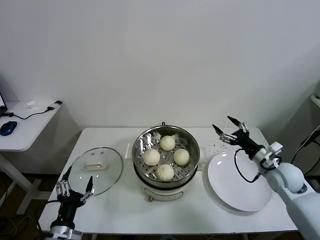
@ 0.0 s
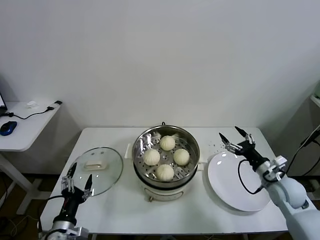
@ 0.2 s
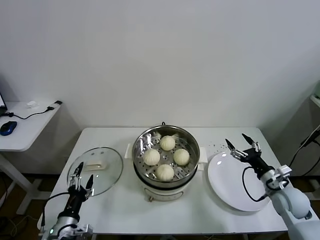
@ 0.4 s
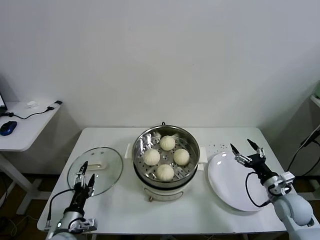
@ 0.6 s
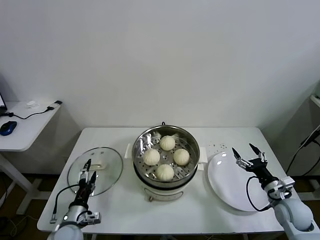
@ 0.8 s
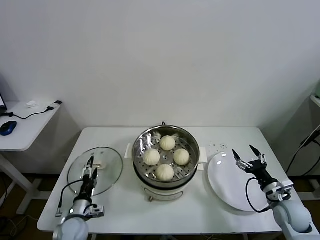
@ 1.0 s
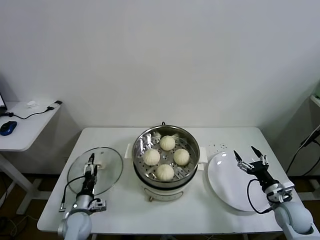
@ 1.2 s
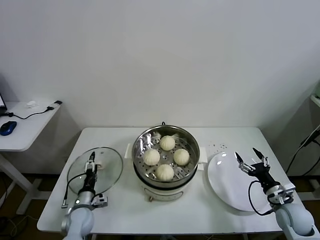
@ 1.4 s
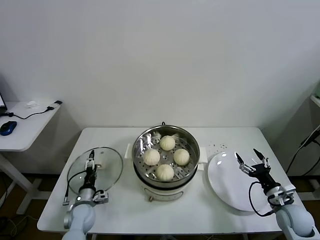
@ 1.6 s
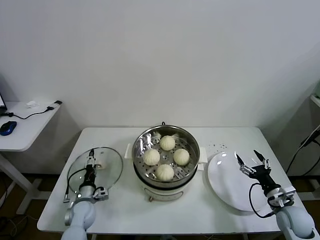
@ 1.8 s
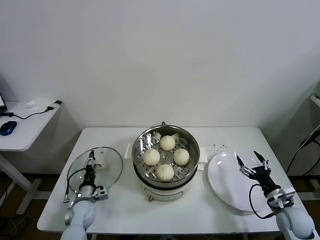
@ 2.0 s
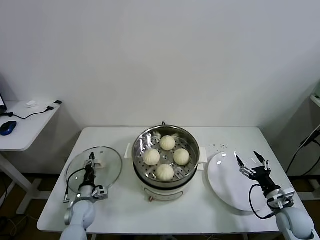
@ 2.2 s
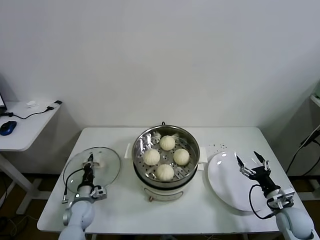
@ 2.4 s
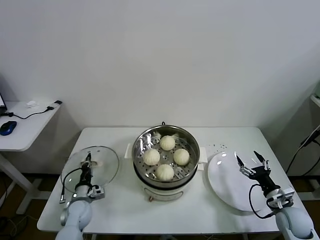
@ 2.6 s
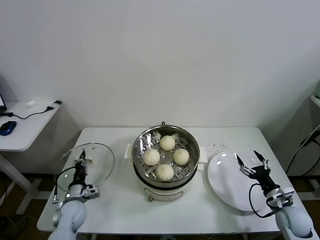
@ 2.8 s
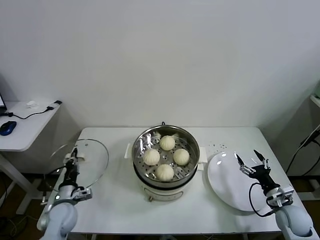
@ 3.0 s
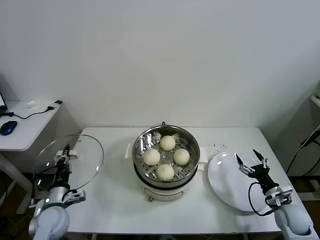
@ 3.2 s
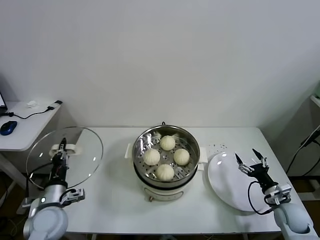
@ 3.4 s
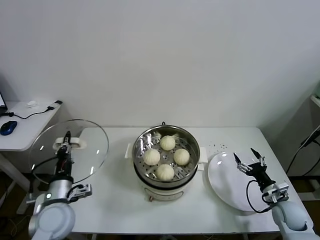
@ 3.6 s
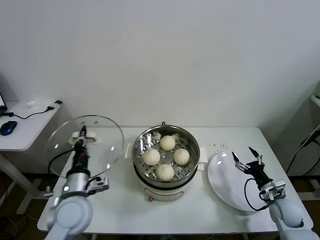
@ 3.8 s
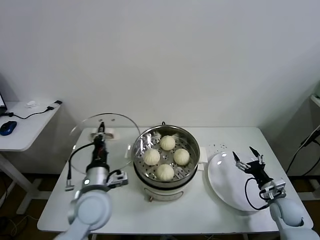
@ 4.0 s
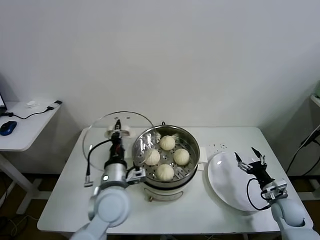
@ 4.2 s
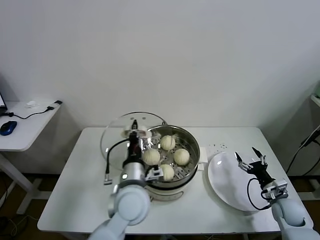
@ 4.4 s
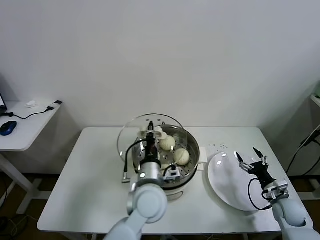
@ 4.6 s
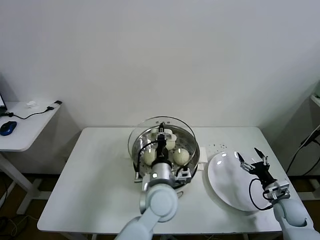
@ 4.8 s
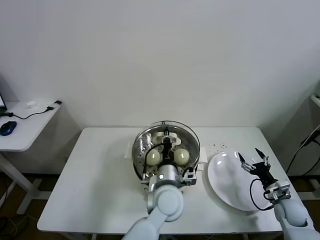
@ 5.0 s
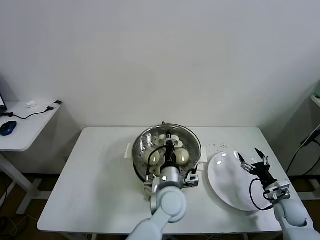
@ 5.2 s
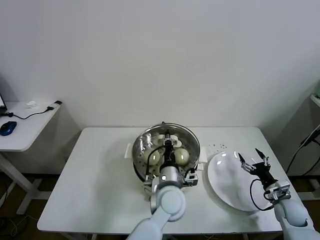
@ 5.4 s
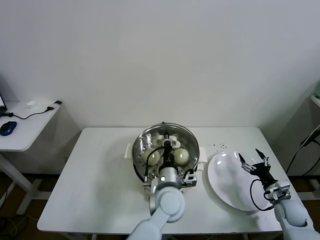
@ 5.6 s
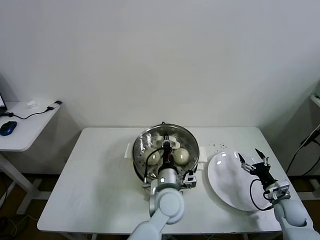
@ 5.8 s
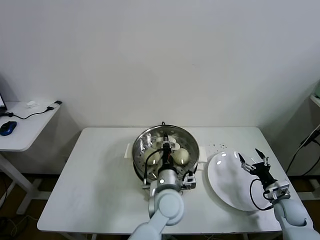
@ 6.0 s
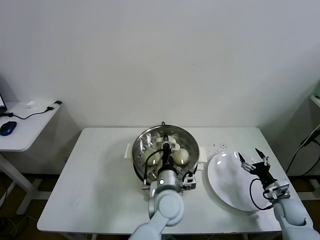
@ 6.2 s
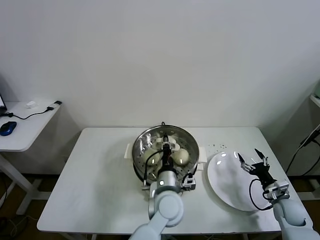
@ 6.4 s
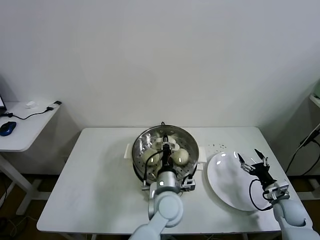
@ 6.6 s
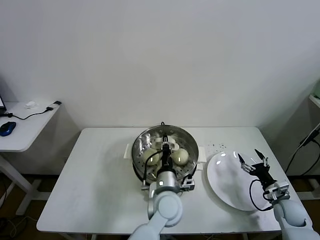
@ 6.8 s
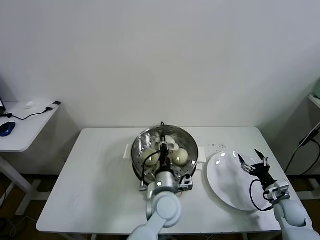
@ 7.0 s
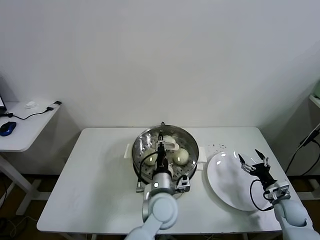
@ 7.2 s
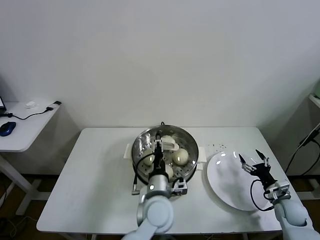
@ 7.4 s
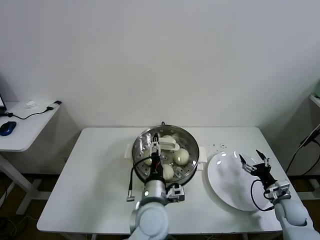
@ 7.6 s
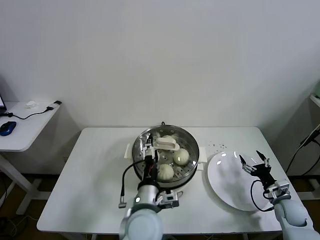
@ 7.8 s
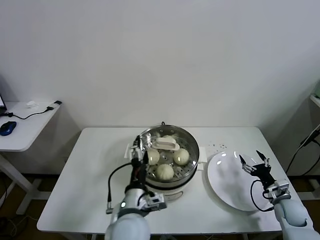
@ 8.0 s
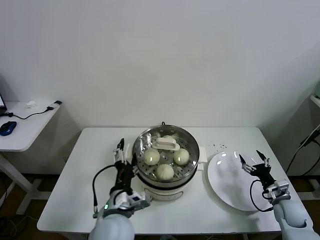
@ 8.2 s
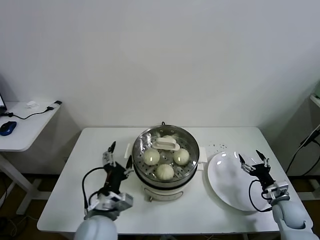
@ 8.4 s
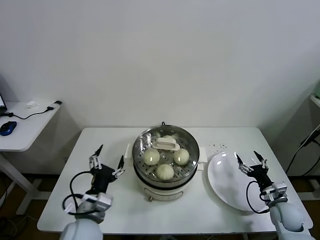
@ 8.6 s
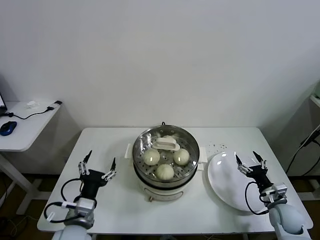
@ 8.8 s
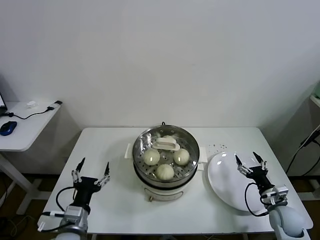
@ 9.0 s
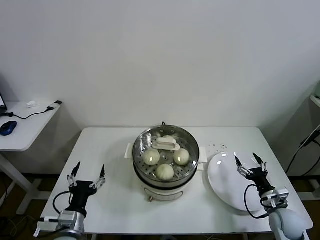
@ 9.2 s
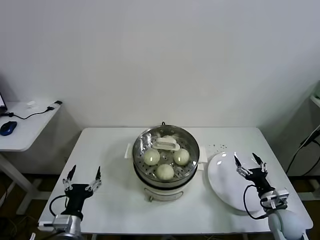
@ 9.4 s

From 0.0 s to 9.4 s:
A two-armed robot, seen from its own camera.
Task of the whole recording: take steamed baozi put them in steamer.
Step, from 0.0 s to 2.4 s: Grasp the pot lid with left gripper.
Step, from 2.6 s to 7.6 s: Place the pot lid on the steamer with left gripper.
From 0.0 s to 1.6 s: The left gripper heads forward and downward, covering roughly 20 cm. Meanwhile the right gripper moves downward and backward, approximately 15 cm.
From 1.6 s to 3.2 s: The left gripper moves upward, about 10 cm, and closes.
From 3.2 s to 4.8 s: The left gripper shifts about 35 cm to the right.
From 4.8 s to 6.2 s: The left gripper changes place by some 5 cm.
From 6.2 s to 7.8 s: The left gripper shifts about 10 cm to the left and backward, and opens its fingers.
From 7.8 s to 9.4 s: The left gripper is displaced to the left by about 25 cm, while the right gripper goes roughly 5 cm to the left.

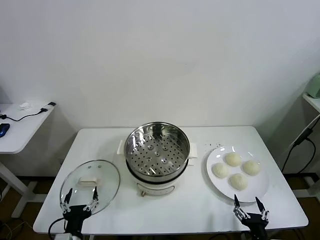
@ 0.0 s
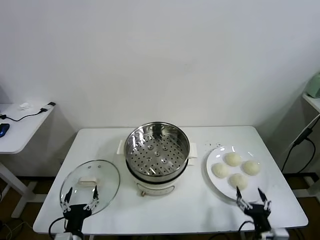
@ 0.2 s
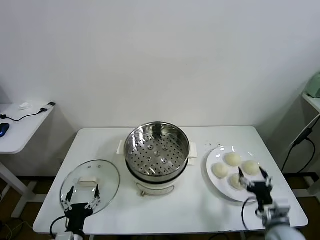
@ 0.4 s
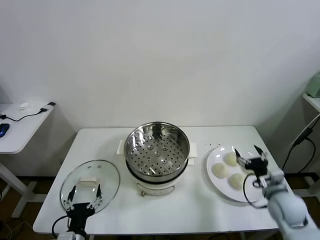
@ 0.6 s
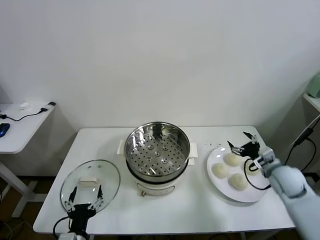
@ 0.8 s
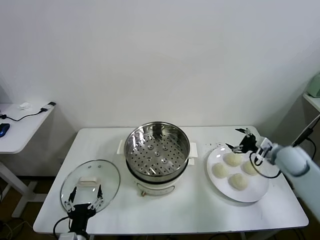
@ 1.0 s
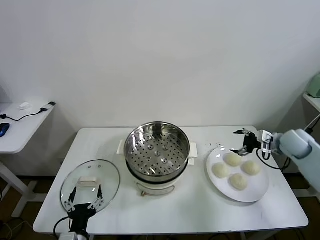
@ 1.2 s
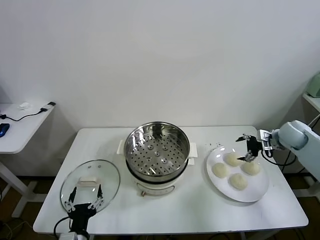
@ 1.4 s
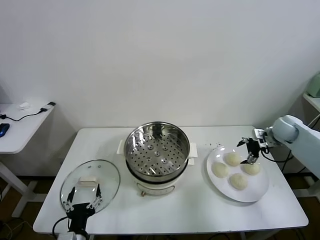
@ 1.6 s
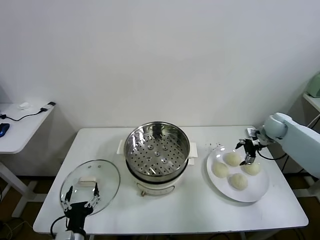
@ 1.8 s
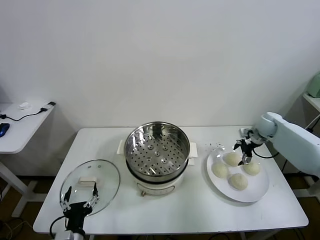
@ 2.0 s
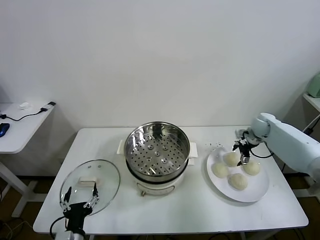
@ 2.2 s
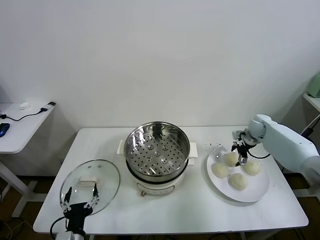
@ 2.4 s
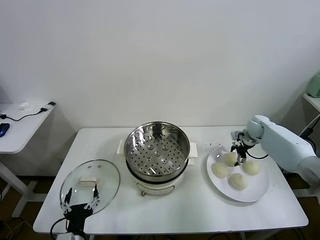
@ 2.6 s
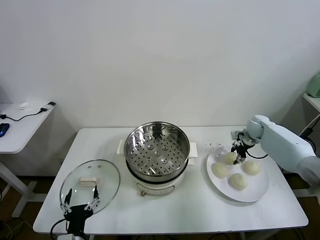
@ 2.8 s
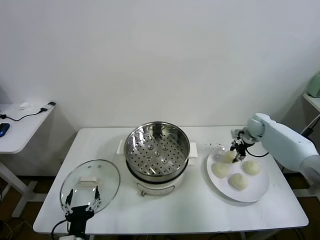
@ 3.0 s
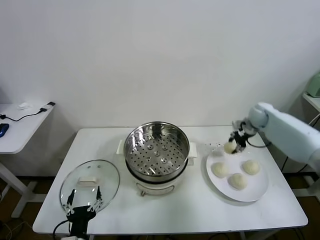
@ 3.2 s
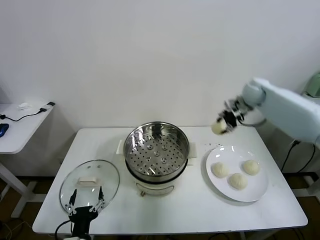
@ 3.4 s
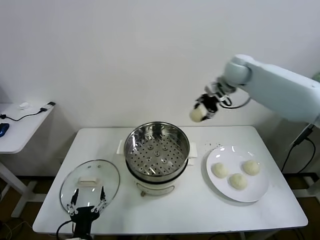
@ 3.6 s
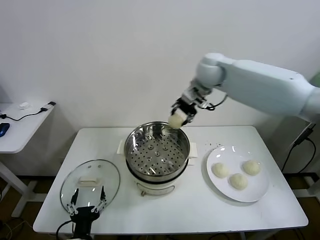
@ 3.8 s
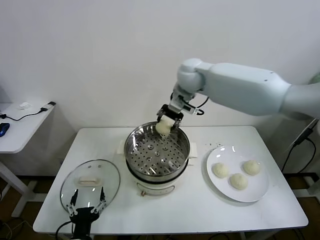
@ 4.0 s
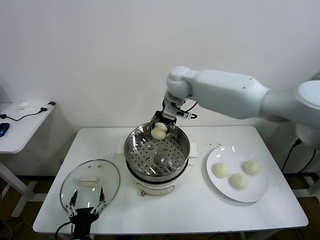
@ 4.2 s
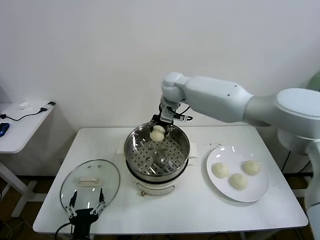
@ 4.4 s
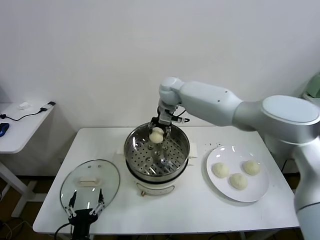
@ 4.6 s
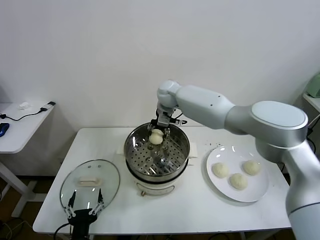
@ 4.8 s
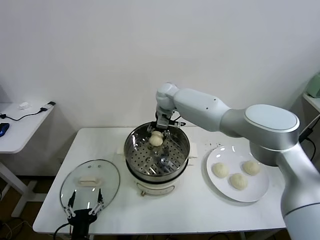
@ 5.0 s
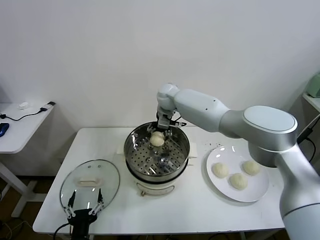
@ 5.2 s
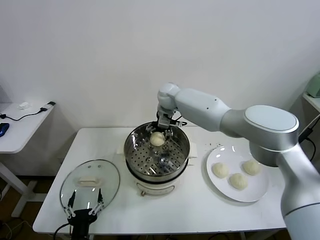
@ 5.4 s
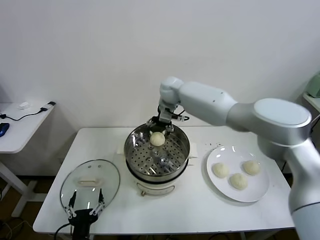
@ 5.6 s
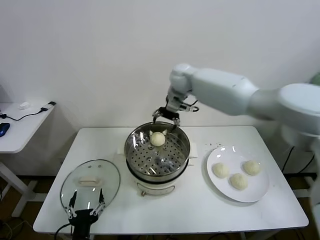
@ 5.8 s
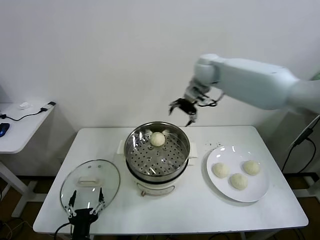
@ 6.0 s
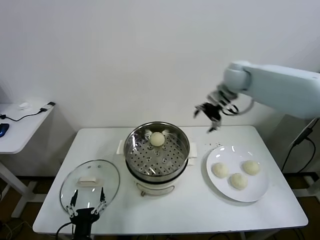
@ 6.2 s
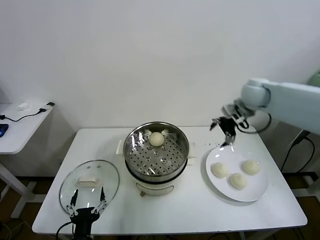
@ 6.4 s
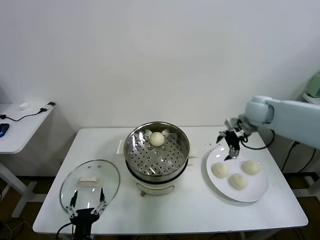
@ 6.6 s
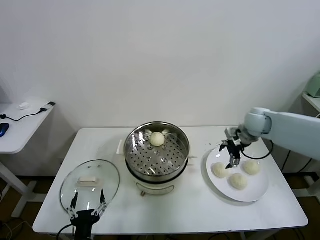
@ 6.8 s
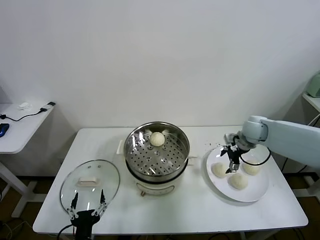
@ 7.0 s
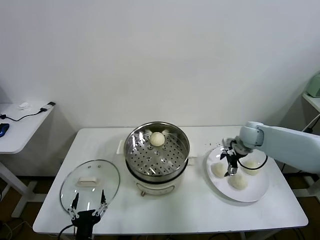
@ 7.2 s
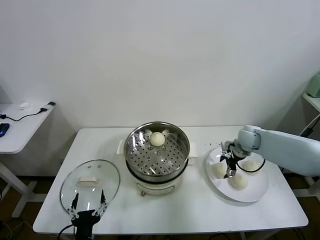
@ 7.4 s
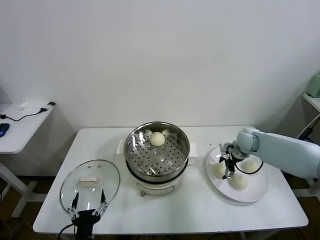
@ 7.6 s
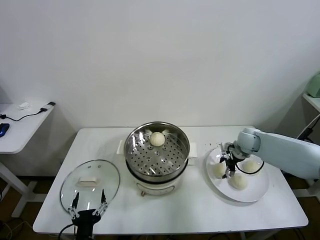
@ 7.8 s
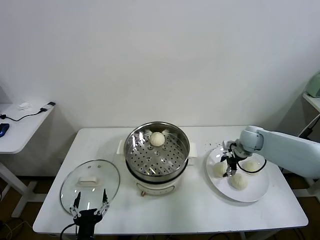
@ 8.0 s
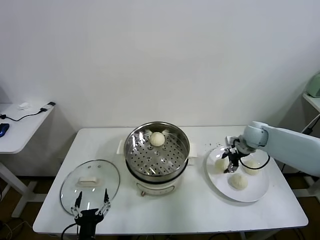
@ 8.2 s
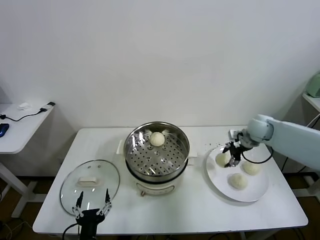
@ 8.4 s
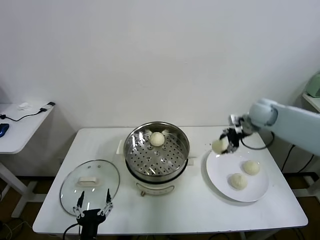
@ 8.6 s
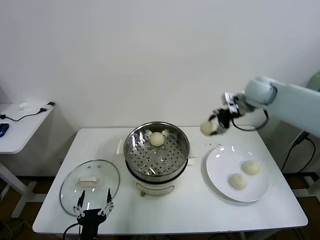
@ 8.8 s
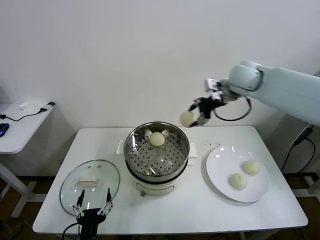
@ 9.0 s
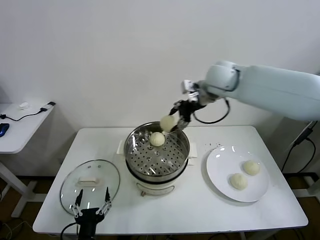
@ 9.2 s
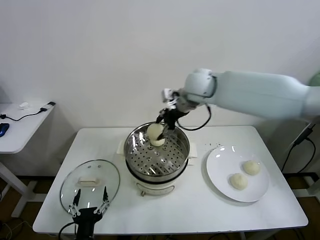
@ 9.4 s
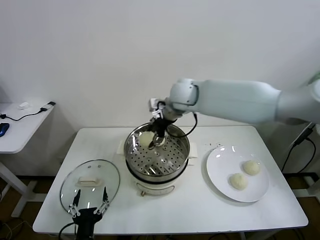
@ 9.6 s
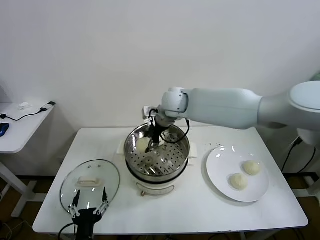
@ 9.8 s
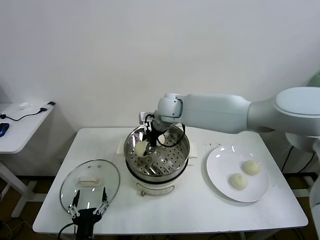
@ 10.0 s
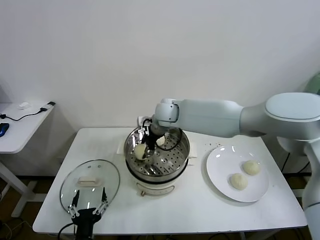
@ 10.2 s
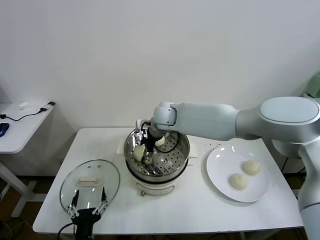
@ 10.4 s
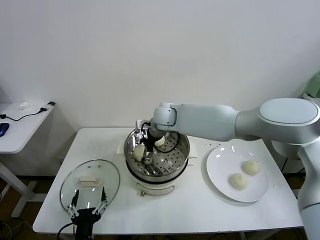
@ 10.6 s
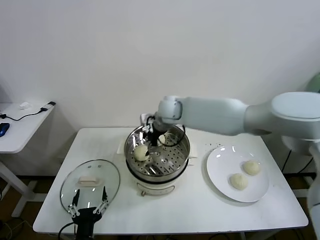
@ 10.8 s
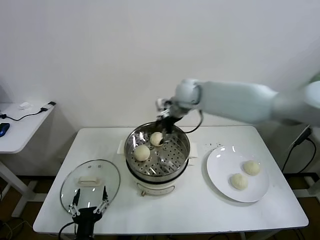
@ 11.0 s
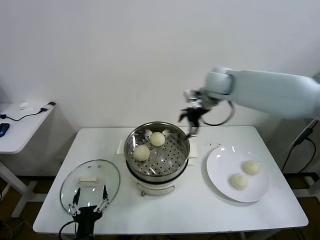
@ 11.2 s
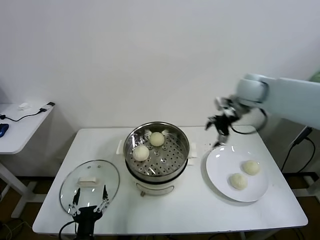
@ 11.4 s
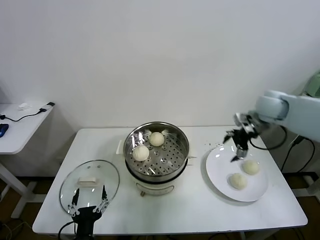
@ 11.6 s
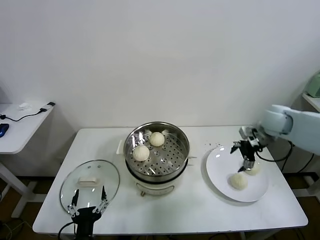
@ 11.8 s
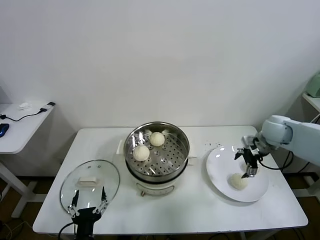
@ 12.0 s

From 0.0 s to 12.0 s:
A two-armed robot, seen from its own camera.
Task of the whole recording: take steamed baozi put them in steamer.
Step, from 0.0 s to 2.8 s: Grasp the baozi in the plate with right gripper.
Step, from 3.0 s to 5.2 s: Place the baozi on the steamer with right gripper.
Step, from 5.4 s to 7.8 s: Grasp the baozi in the plate with right gripper.
Step, from 8.0 s to 10.6 s: Place the baozi on the steamer with right gripper.
From 1.6 s to 3.0 s: The right gripper heads forward, covering roughly 5 cm, and closes up.
From 3.0 s to 4.4 s: The right gripper shifts about 40 cm to the left and upward.
From 4.4 s to 6.0 s: The right gripper is displaced to the right and upward by about 20 cm, and opens up.
From 6.0 s to 7.6 s: The right gripper travels downward and to the right by about 30 cm.
From 7.6 s to 9.0 s: The right gripper travels upward and to the left by about 30 cm, and closes up.
From 9.0 s to 10.4 s: The right gripper heads to the left and downward, covering approximately 25 cm, and opens.
From 10.4 s to 12.0 s: The right gripper heads to the right, covering about 40 cm.
